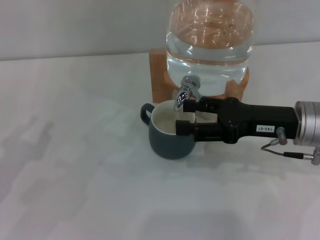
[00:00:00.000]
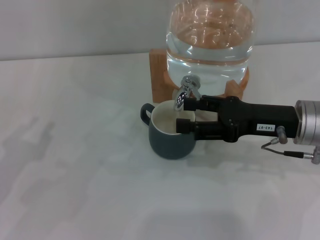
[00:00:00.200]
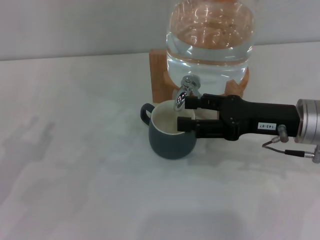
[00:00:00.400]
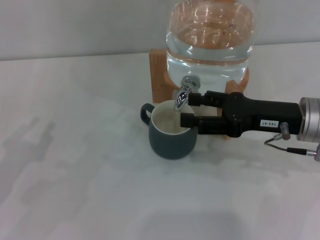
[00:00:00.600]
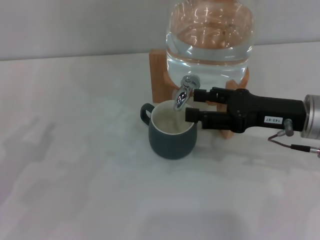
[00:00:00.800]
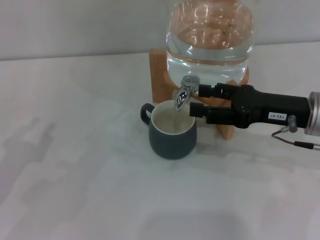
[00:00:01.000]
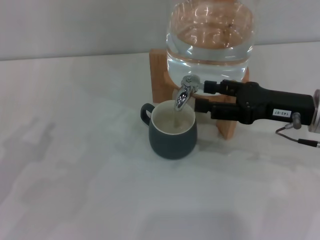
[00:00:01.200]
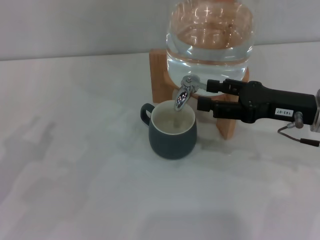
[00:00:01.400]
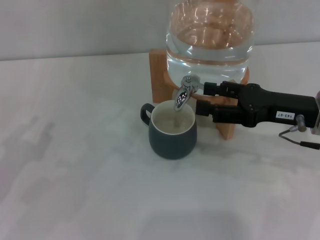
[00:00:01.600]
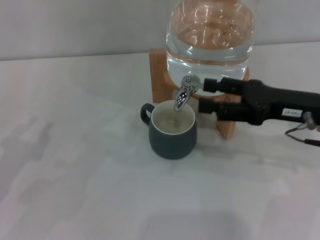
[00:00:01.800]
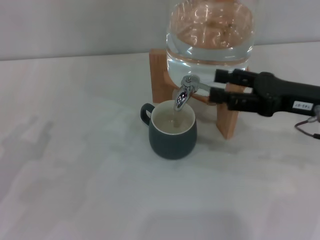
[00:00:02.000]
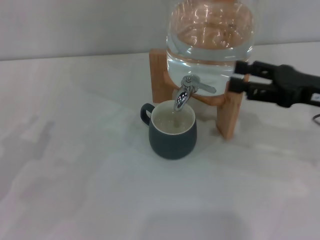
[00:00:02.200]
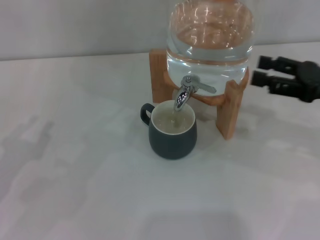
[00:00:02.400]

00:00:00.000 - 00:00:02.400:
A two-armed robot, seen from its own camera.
Task of the whole recording: the left gripper pick up the black cup and place it horizontally under the faucet, the right gripper turn on the faucet to fill the cup, and then turn off the faucet.
00:00:00.000 - 00:00:01.200: There are only small adjustments of the grippers.
00:00:01.200 - 00:00:02.400: The right gripper is displaced to the right by approximately 5 cm.
